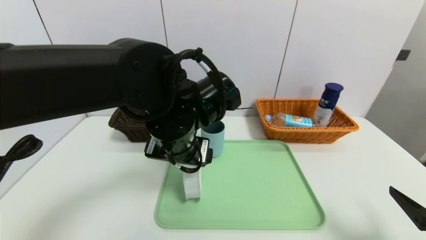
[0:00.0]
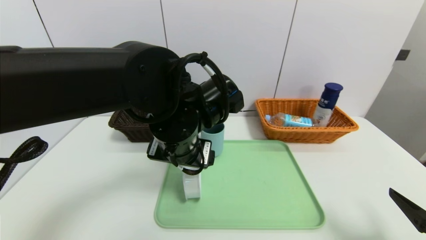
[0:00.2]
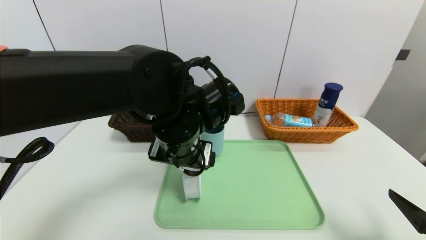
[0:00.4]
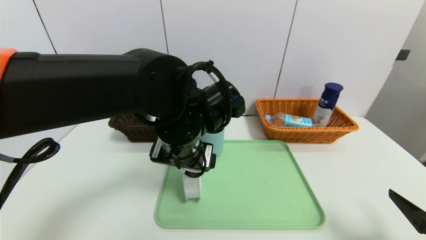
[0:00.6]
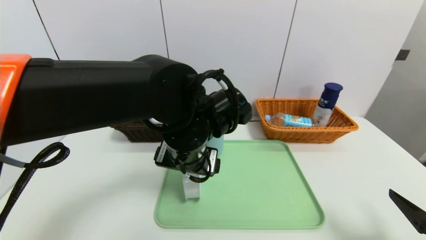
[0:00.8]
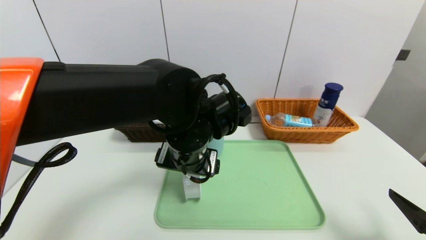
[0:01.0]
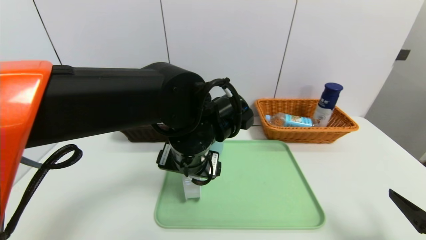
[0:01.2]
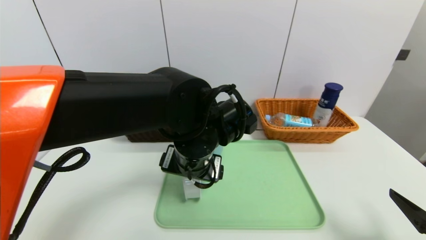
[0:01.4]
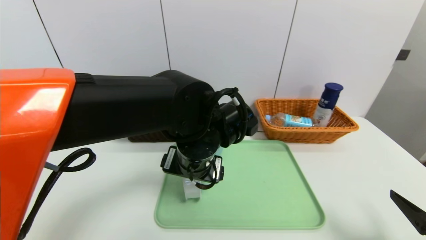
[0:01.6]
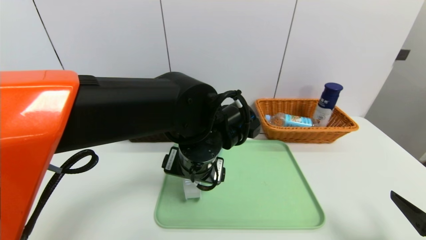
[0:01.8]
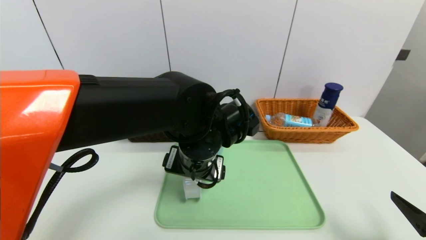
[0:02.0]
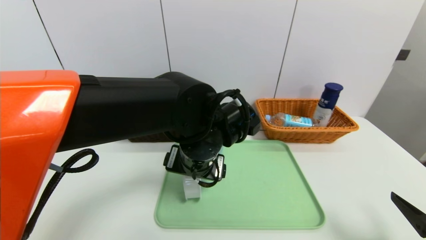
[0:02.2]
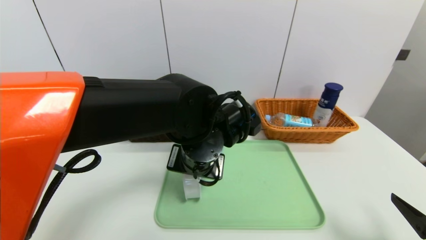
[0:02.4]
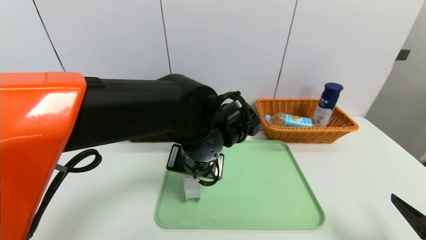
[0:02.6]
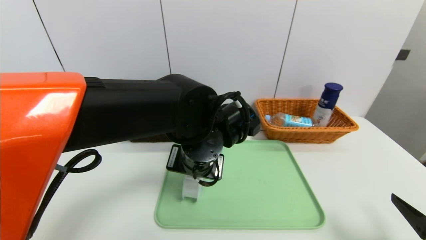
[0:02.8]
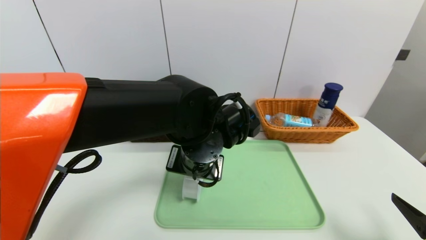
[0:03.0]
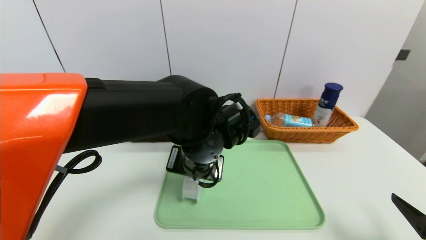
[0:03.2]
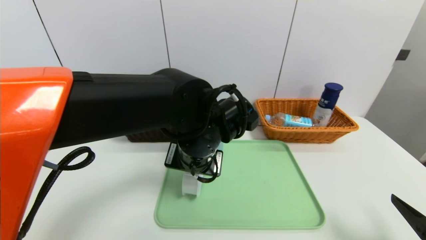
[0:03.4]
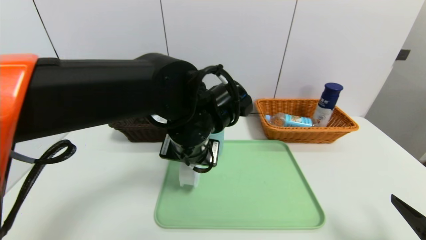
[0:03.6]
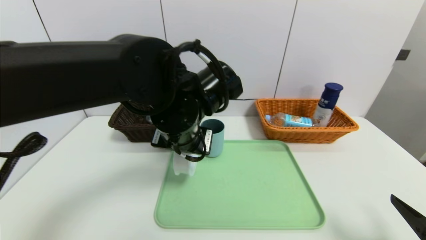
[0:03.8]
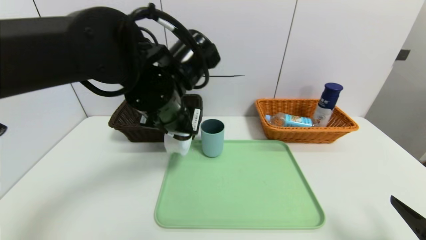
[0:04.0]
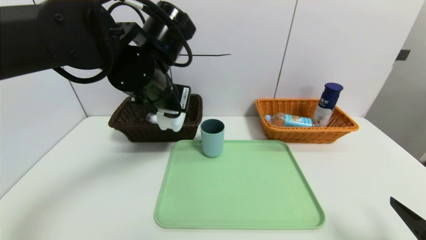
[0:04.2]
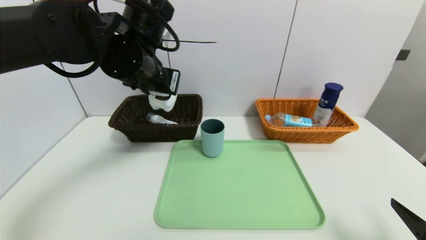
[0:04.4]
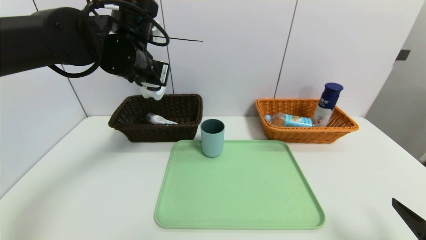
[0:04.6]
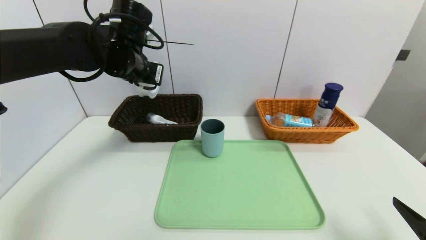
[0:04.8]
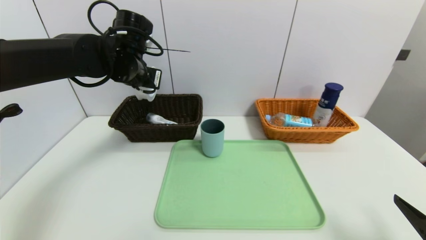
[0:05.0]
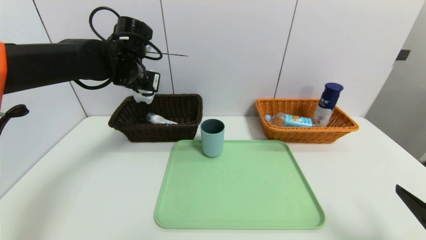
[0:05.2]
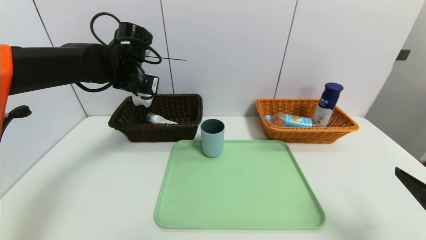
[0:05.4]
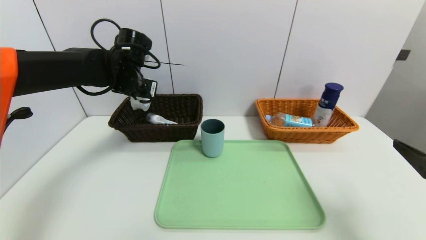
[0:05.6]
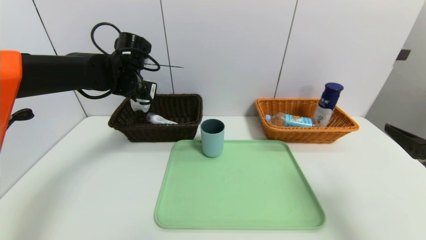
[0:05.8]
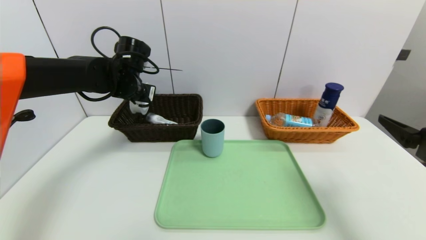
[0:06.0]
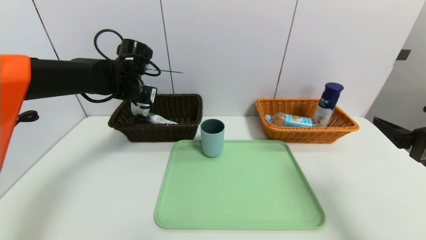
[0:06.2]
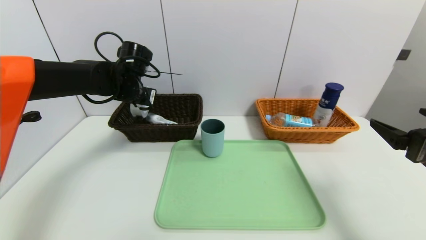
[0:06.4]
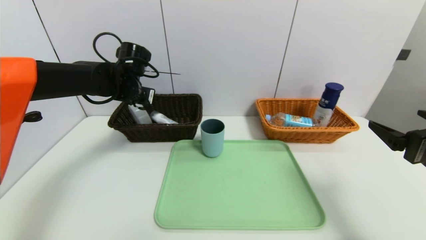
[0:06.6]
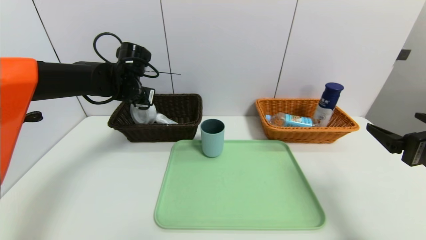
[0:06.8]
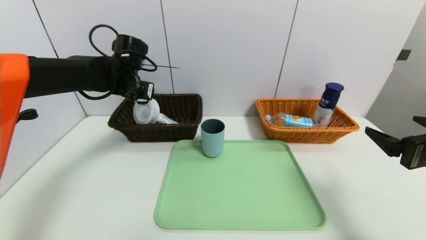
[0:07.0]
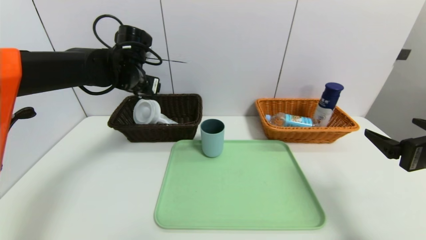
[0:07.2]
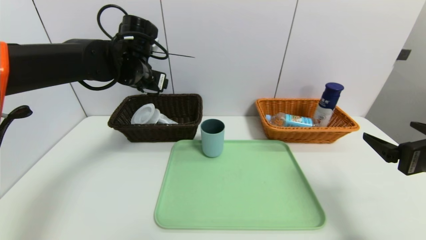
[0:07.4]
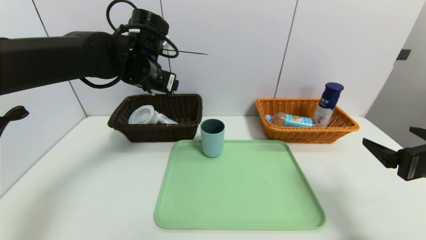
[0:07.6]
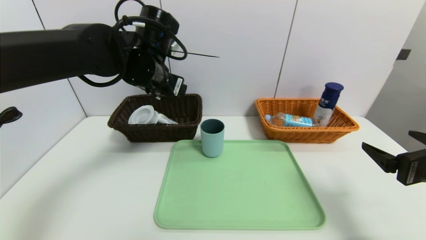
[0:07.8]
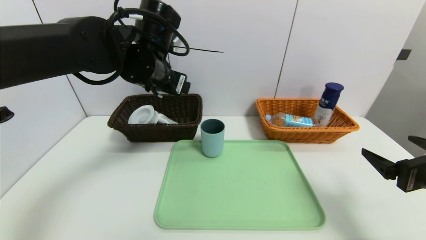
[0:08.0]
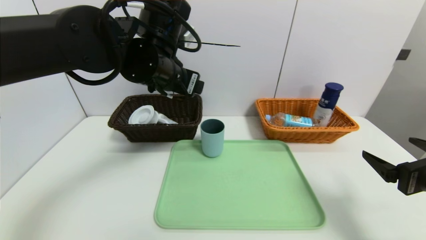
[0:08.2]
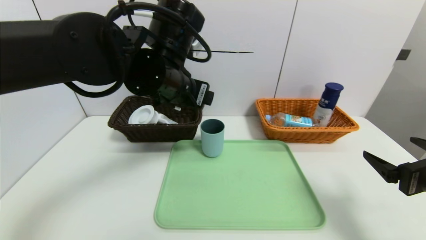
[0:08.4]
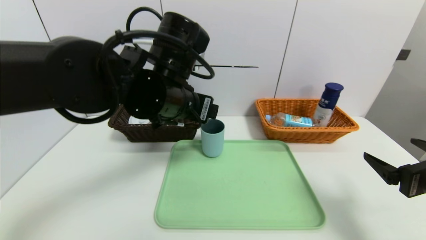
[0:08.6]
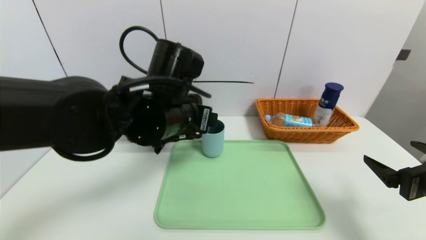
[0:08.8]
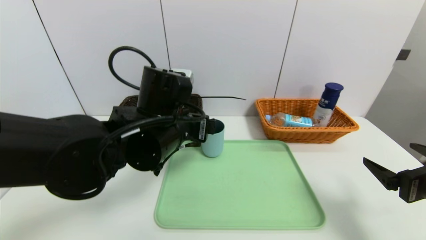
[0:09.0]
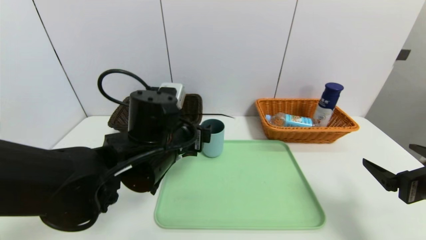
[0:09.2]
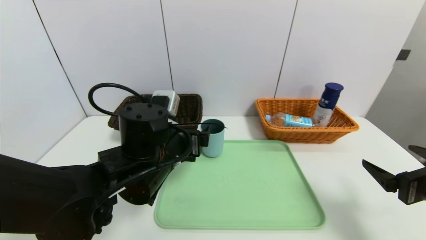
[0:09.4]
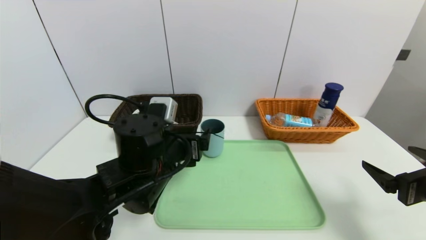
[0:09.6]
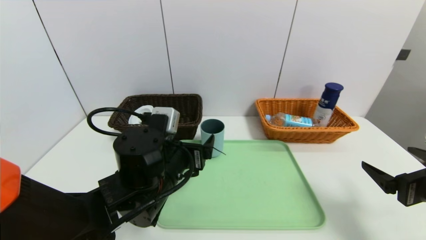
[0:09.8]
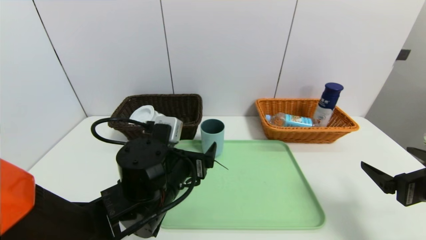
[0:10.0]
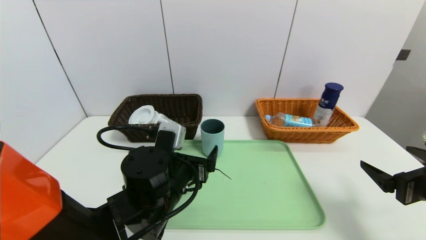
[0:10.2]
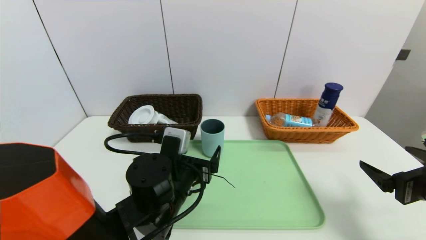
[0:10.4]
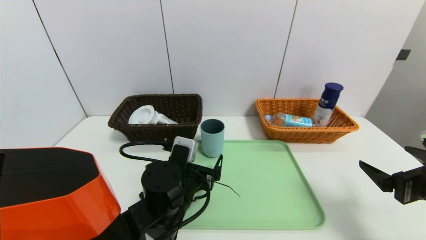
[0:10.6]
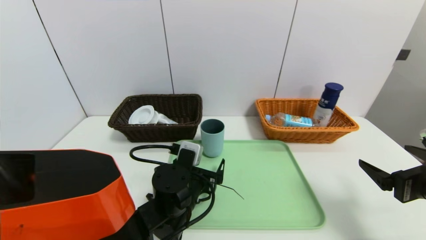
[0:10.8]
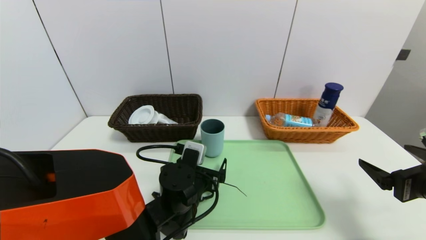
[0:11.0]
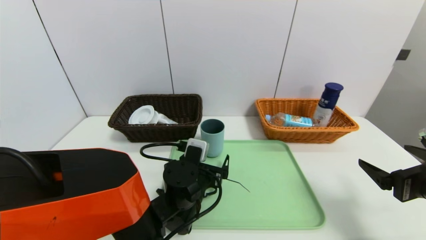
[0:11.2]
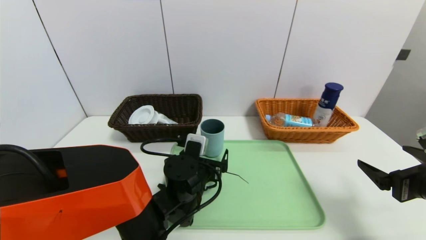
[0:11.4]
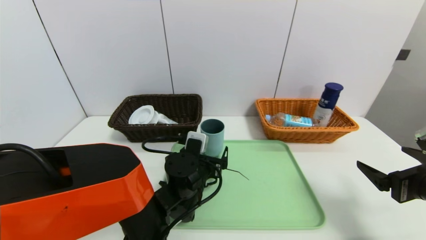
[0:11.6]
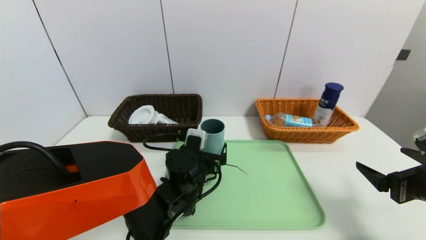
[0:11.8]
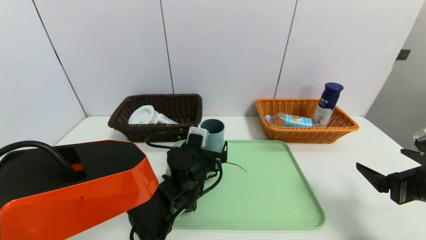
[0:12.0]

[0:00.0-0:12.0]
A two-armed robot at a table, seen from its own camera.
Task of the whole recording: place the food in the right basket with the right gripper, and place the non food items in the left basket with the left gripper.
Step, 0:00.0 to 0:07.4: Grasp the tape and put it in the left basket.
0:01.6 to 0:03.0: The left gripper closes up.
0:03.0 to 0:04.4: The left gripper goes some 15 cm upward, to the left and forward.
0:04.4 to 0:06.0: The right gripper moves upward and forward, approximately 10 cm. Meanwhile the left gripper is displaced forward, to the left and downward by approximately 15 cm.
0:06.0 to 0:07.6: The left gripper moves to the right, roughly 5 cm, and opens its fingers.
0:07.6 to 0:09.0: The left gripper travels backward, downward and to the right by about 15 cm.
0:09.0 to 0:10.4: The left gripper shifts some 10 cm downward.
0:10.4 to 0:12.0: The left gripper goes roughly 5 cm forward.

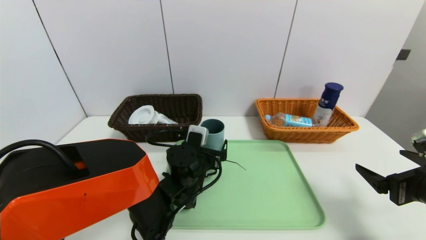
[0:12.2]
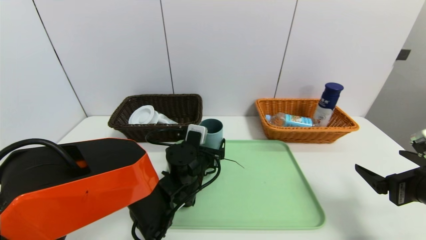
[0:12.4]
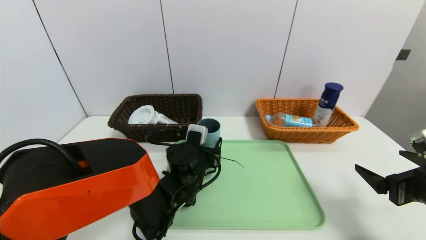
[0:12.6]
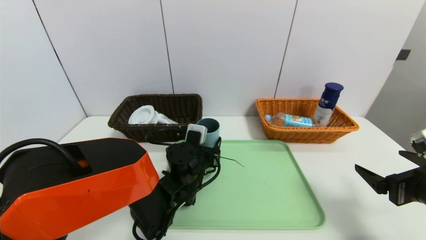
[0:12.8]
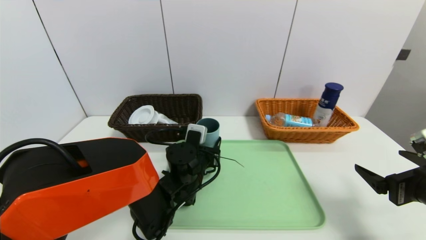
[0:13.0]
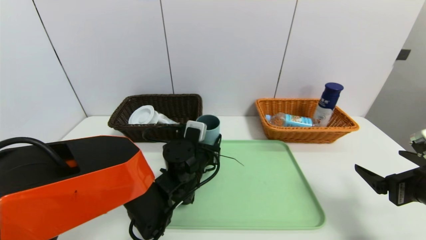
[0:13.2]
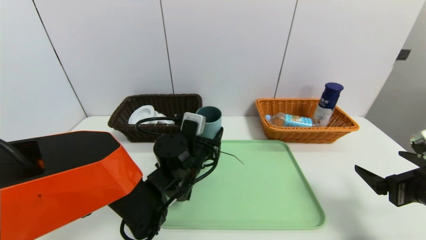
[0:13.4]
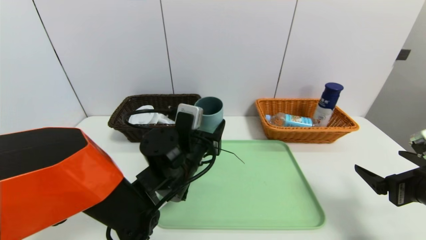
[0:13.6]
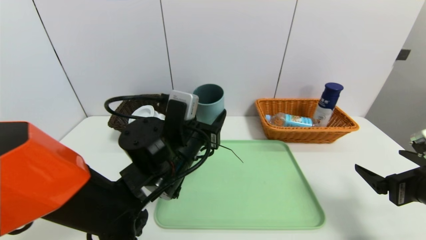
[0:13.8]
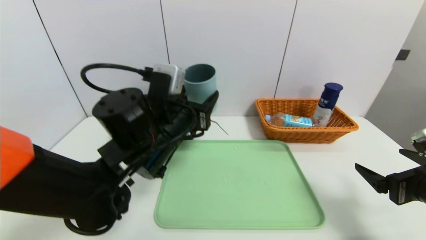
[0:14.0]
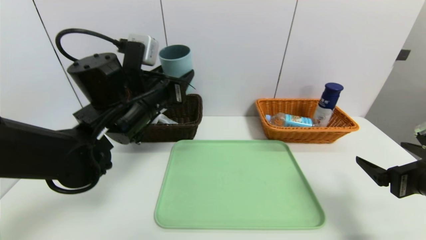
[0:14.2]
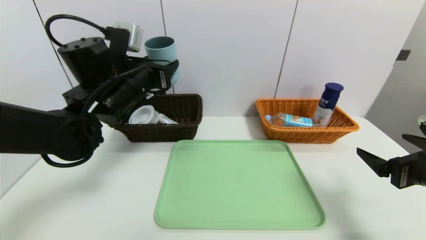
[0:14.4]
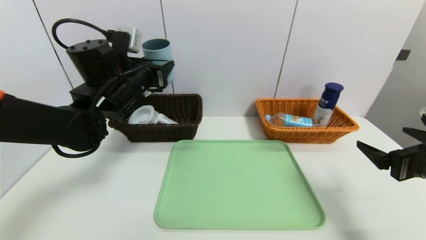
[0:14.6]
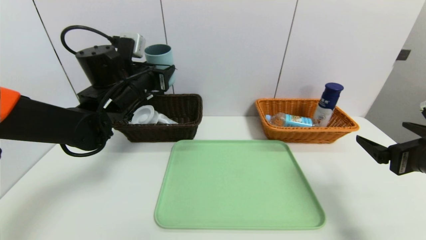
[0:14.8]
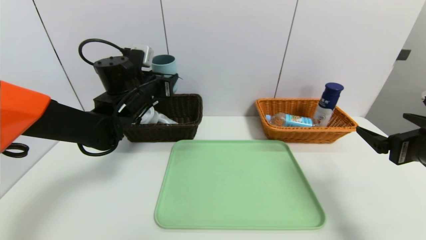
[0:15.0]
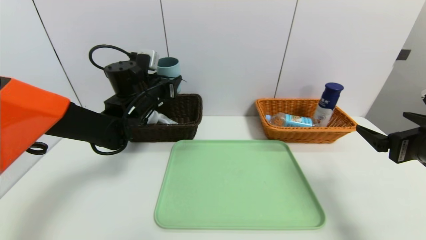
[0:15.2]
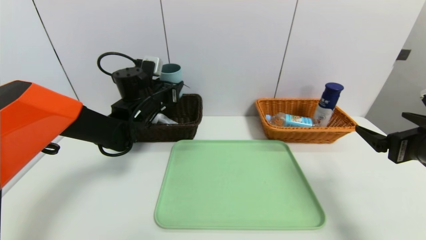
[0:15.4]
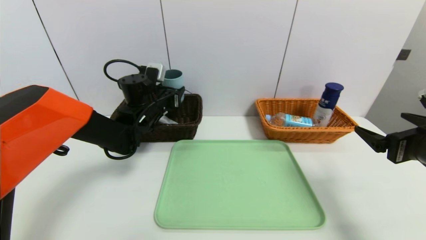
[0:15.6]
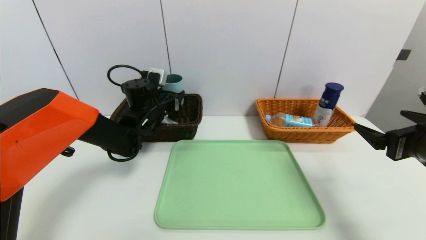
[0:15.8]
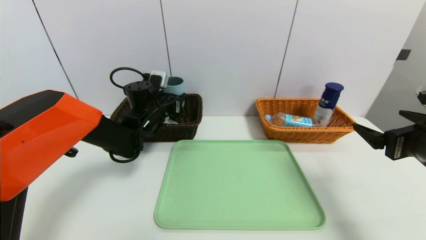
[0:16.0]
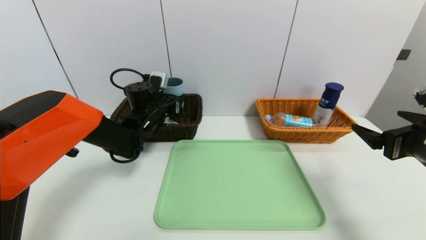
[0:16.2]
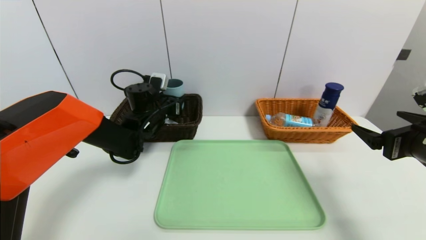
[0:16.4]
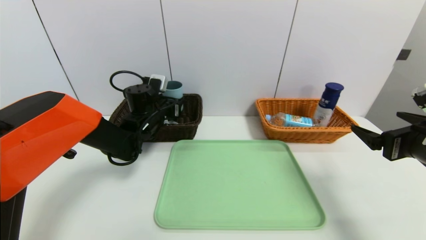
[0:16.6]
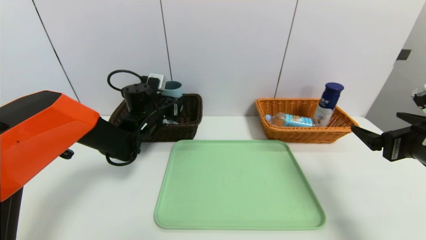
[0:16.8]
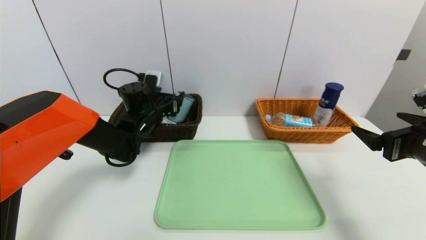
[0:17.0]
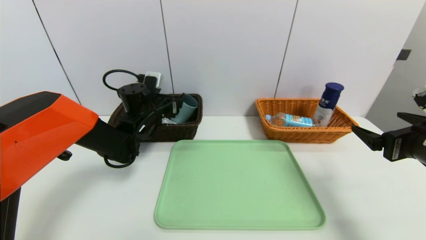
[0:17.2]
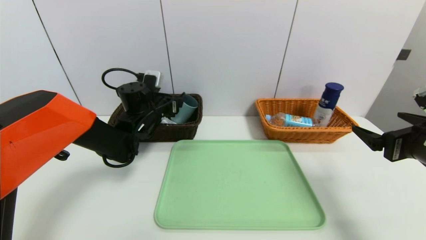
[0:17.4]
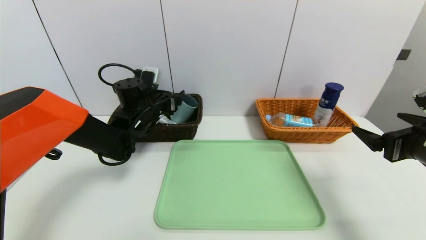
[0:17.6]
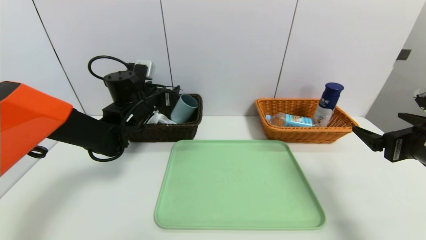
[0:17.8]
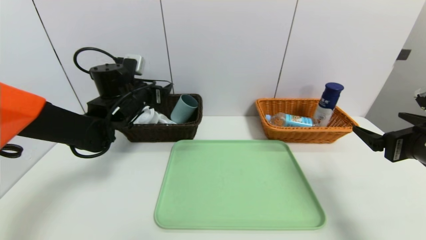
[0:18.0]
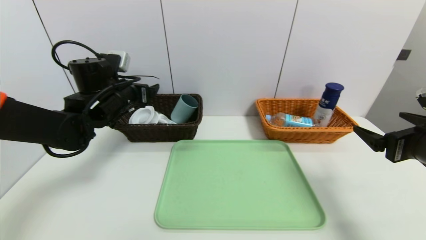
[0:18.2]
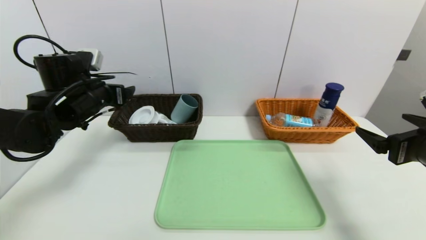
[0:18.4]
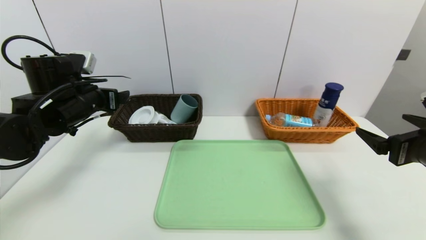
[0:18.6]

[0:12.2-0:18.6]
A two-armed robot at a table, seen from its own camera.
Task of the whole recording: place the food in the right basket with the right gripper, and place the non food items in the left basket with the left gripper.
Step, 0:12.2 to 0:17.8: Grasp the blue cup and put it in the left basket.
0:12.2 to 0:13.8: The left gripper is displaced upward by some 10 cm, and closes up.
0:13.8 to 0:15.4: The right gripper heads upward, covering about 5 cm, while the left gripper moves forward and to the left, some 20 cm.
0:15.4 to 0:17.0: The grippers stay close to where they were, moving slightly.
0:17.0 to 0:18.6: The left gripper is displaced to the left, backward and upward by approximately 15 cm.
